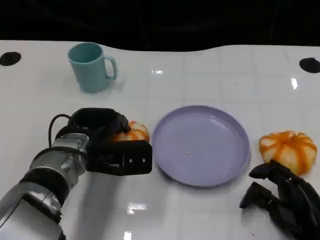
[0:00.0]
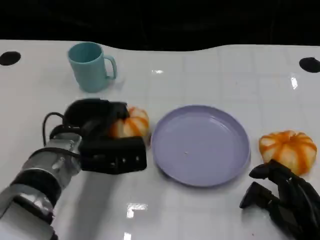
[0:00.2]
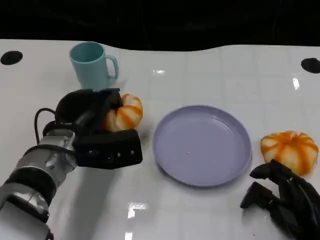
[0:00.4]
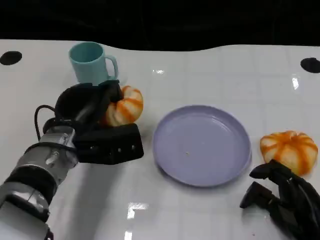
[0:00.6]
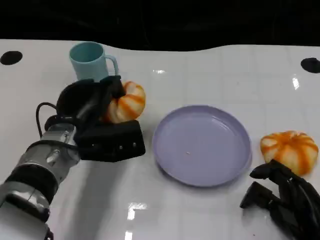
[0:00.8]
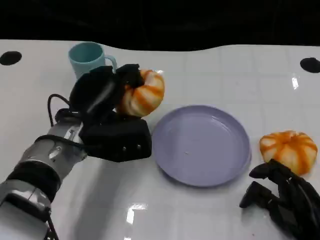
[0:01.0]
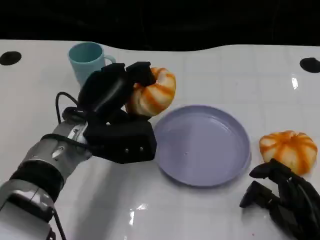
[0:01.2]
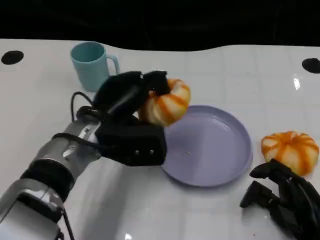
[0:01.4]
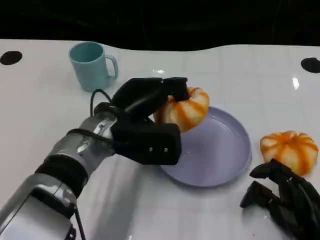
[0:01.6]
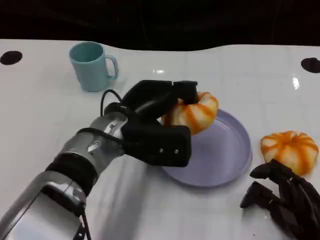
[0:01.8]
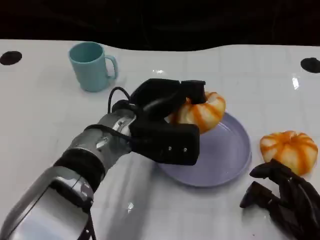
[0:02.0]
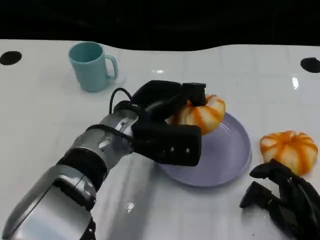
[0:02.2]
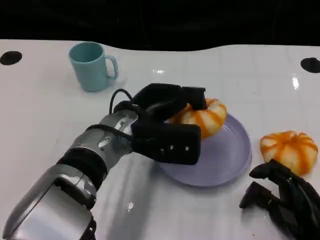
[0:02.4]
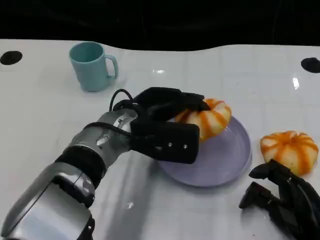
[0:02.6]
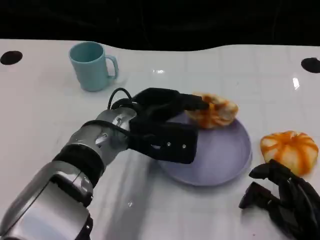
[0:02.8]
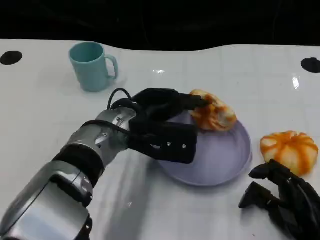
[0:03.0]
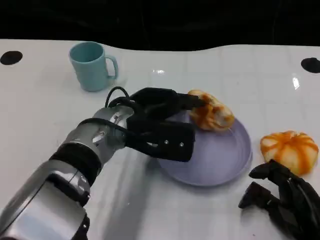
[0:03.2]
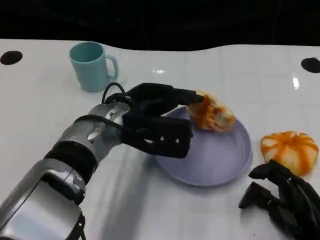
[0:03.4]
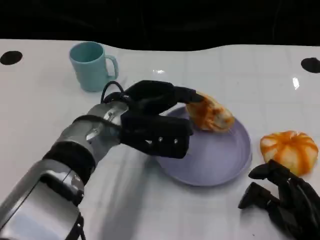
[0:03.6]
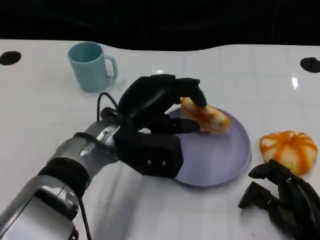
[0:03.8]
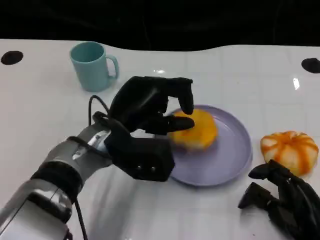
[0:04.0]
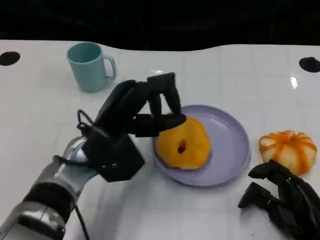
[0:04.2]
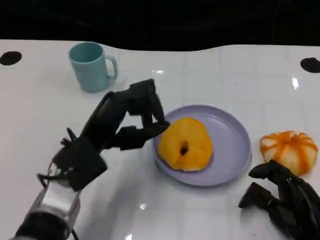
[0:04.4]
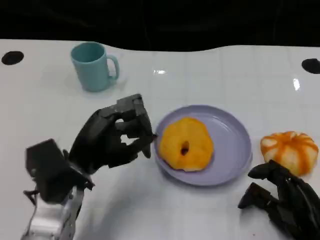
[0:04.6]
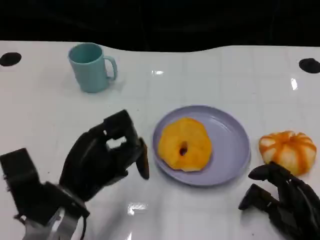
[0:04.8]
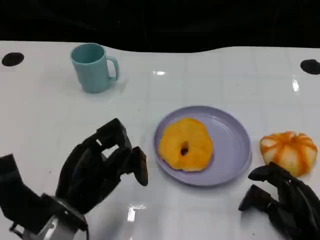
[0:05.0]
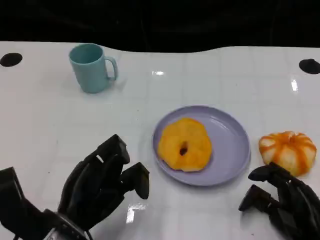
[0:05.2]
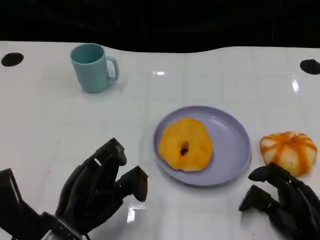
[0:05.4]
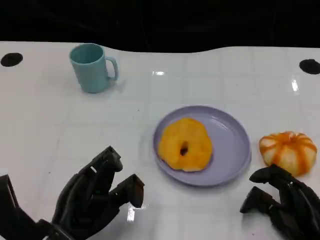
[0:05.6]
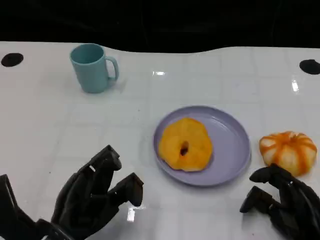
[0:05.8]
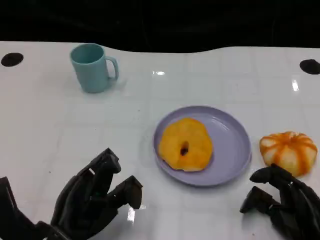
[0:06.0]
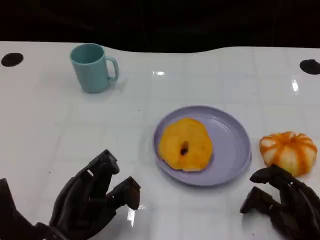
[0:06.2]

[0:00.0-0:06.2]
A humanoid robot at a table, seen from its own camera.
Task of the whole recording: Grasp the bread from the table and place it into the plate.
0:00.0 to 0:01.6: The left hand shifts approximately 5 cm to the right.
0:01.6 to 0:03.2: There are only small adjustments of the hands.
0:03.2 to 0:04.6: The left hand moves to the left and backward, roughly 10 cm.
0:04.6 to 0:06.2: The left hand is displaced backward by about 5 cm.

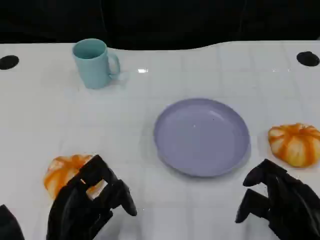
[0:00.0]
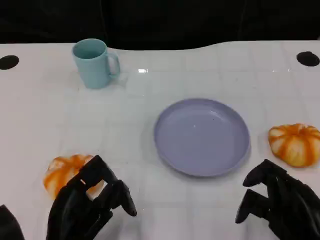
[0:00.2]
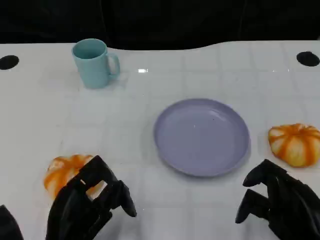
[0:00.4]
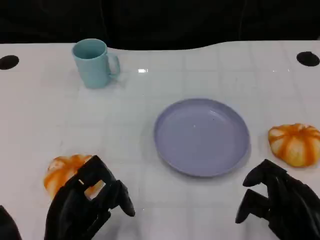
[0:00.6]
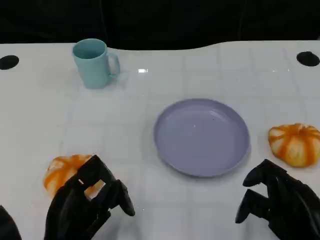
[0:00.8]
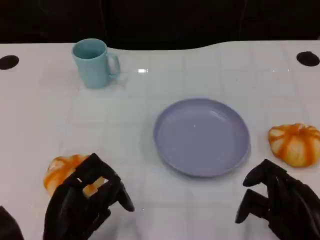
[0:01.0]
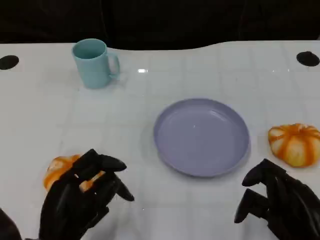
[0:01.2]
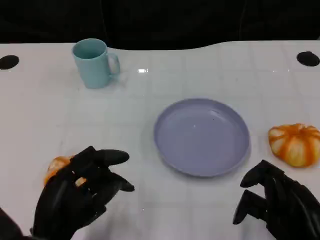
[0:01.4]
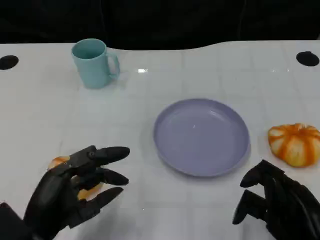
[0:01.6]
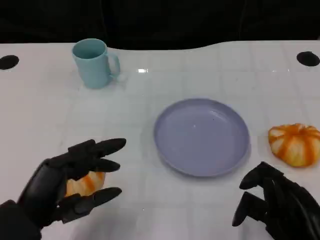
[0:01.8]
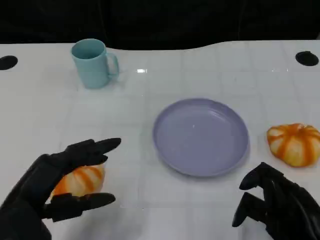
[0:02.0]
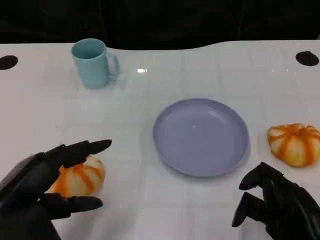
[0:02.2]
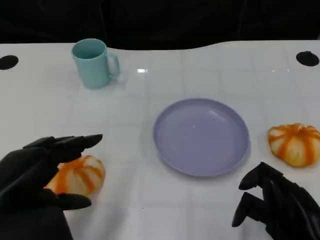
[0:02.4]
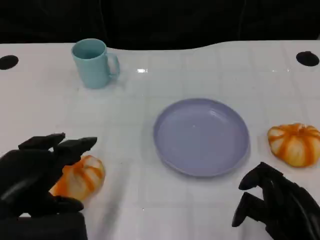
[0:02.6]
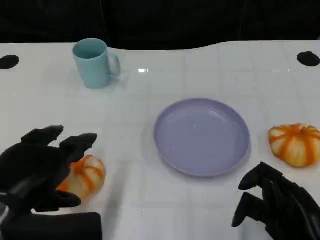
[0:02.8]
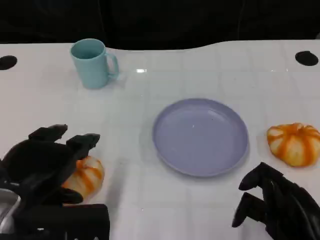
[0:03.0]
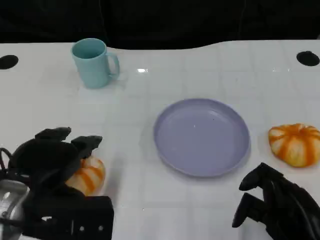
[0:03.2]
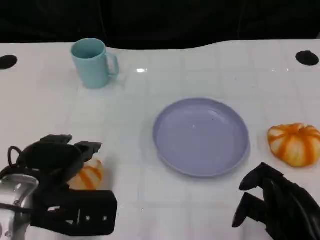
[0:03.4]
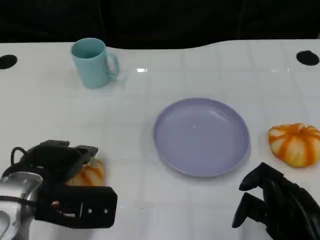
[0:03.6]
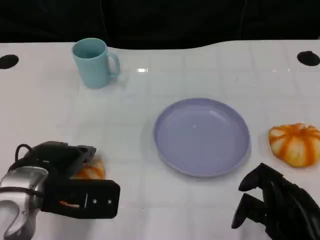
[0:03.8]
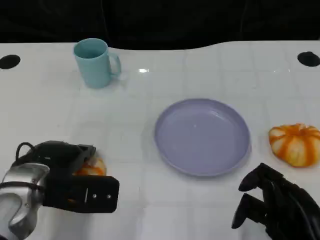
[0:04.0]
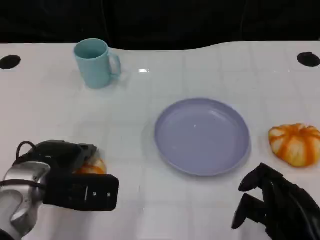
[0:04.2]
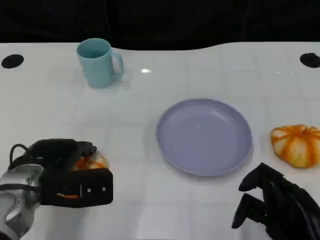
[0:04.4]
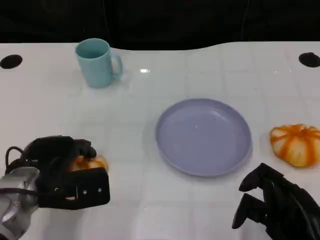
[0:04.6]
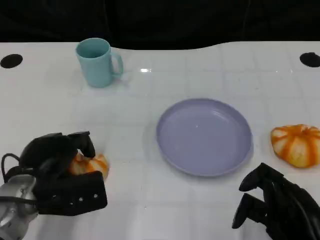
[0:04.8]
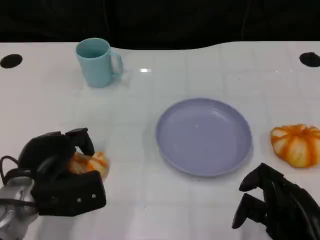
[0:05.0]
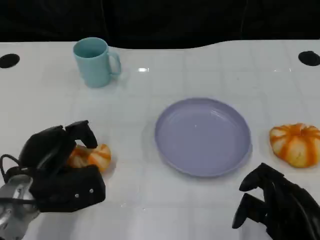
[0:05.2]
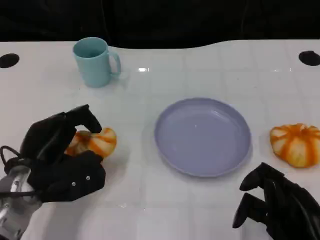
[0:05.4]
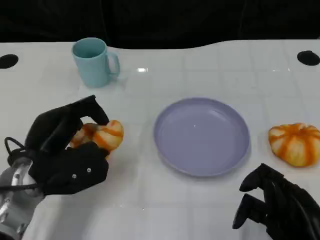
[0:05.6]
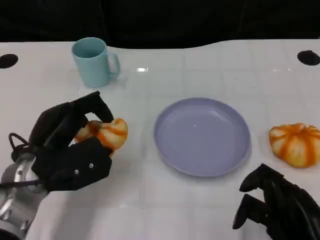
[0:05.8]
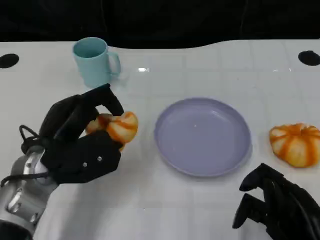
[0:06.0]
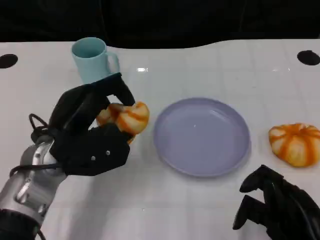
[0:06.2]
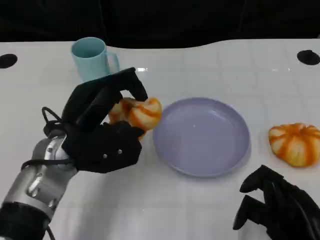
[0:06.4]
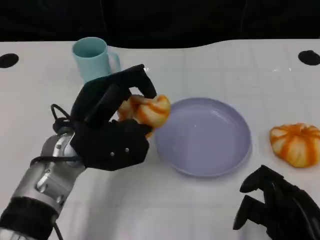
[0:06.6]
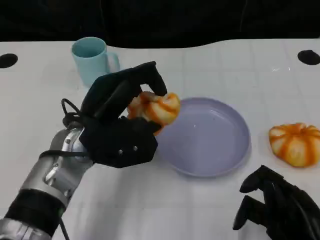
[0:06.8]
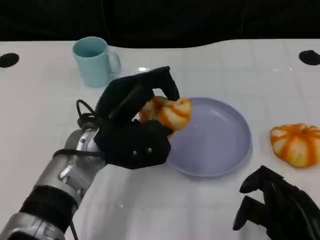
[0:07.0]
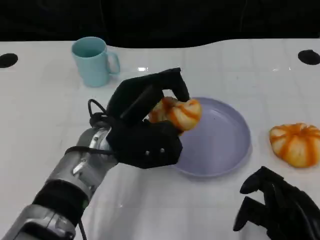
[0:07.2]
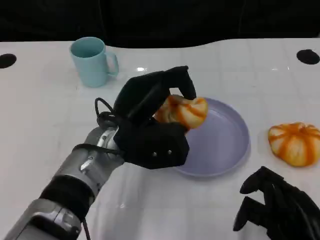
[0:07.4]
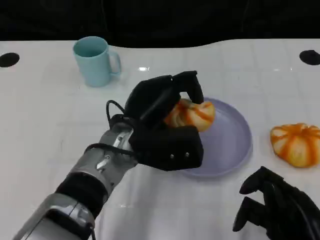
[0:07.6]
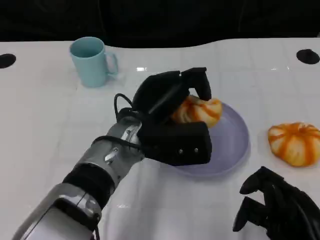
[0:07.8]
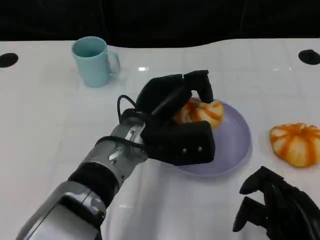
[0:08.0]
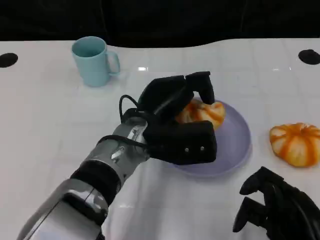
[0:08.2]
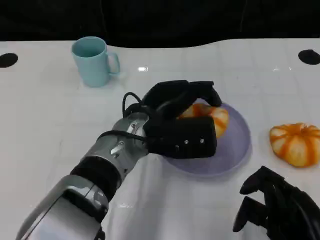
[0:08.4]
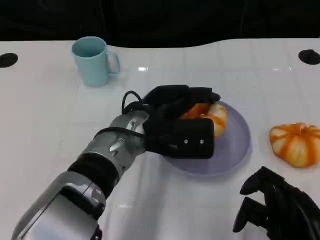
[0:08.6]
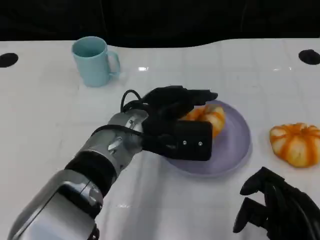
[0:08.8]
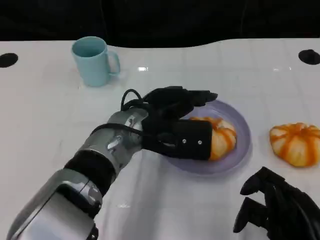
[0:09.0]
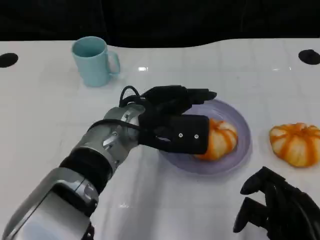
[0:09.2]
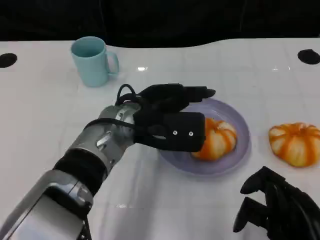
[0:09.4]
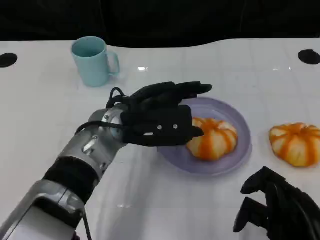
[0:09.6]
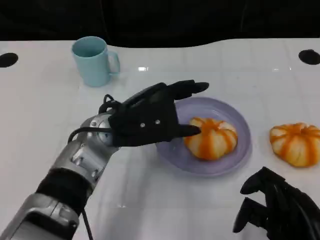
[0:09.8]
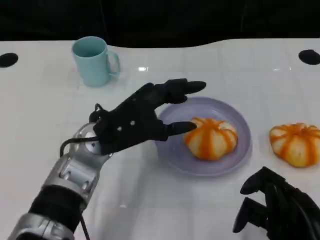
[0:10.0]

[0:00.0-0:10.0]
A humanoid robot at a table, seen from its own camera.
Task of the whole recording: Grasp the bread from the table and place it into the plate.
0:01.4 to 0:02.8: The left hand goes roughly 10 cm upward.
0:02.8 to 0:04.2: The left hand heads forward and downward, covering roughly 10 cm.
0:05.8 to 0:07.2: The left hand shifts some 10 cm to the right.
0:08.6 to 0:10.0: The left hand heads to the left, covering some 5 cm.

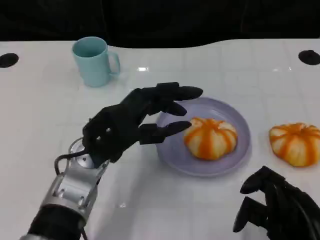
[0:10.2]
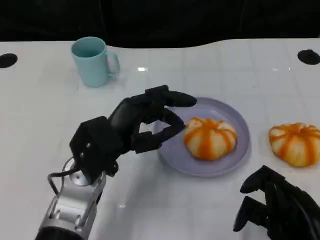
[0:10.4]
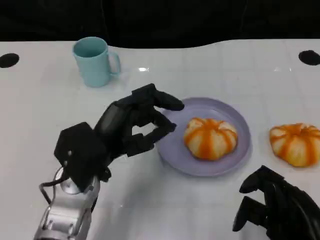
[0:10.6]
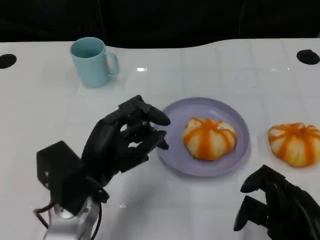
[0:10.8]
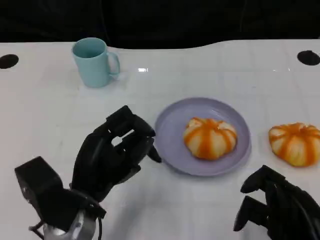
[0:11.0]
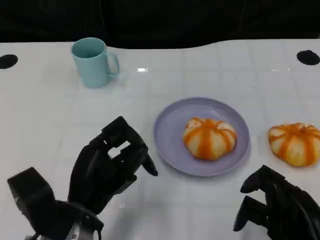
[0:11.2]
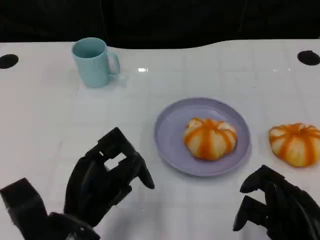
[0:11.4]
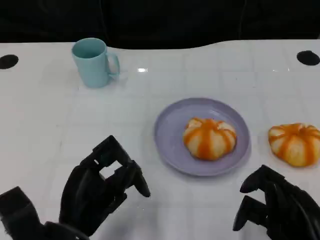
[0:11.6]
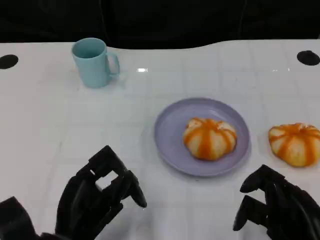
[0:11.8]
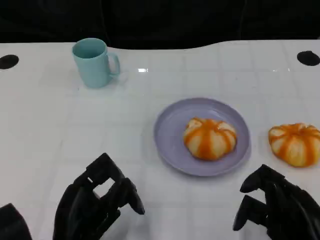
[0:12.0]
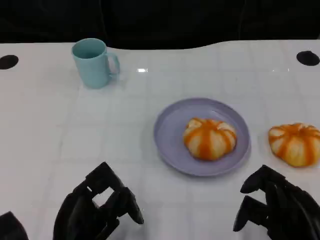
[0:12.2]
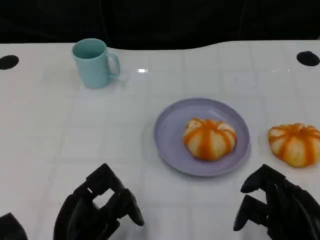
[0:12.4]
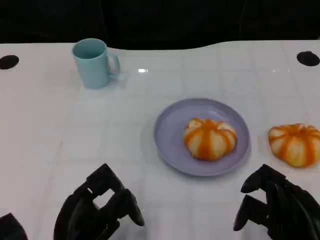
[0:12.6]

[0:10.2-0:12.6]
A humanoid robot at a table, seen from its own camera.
Task of the whole recording: Grasp the bread from the table and place it into the plate.
0:10.2 to 0:11.4: The left hand heads backward and downward, covering about 10 cm.
0:11.4 to 0:12.6: The hands move only a little.

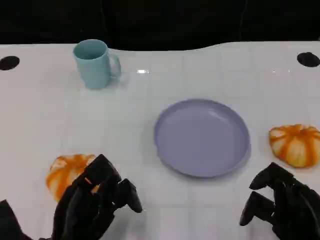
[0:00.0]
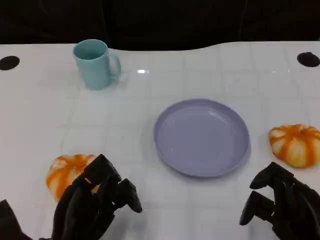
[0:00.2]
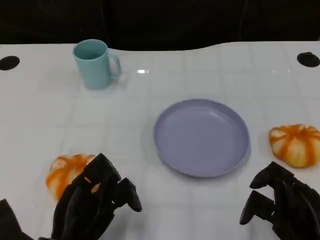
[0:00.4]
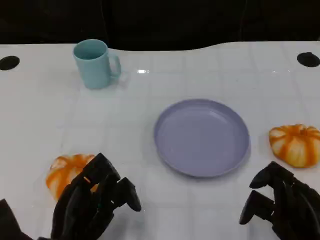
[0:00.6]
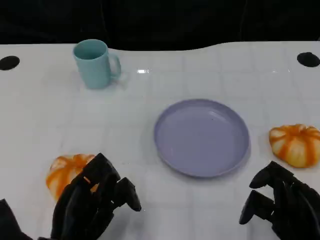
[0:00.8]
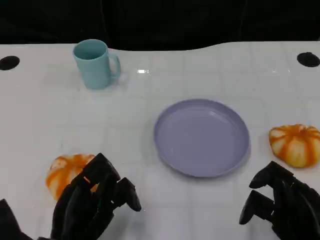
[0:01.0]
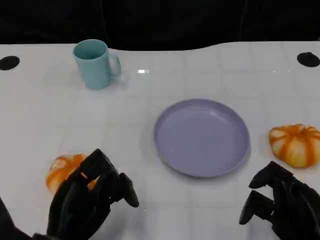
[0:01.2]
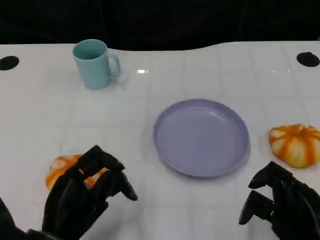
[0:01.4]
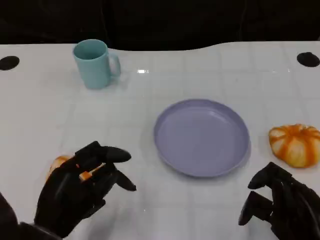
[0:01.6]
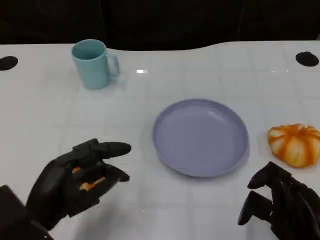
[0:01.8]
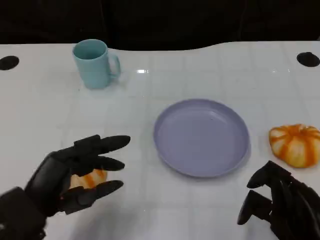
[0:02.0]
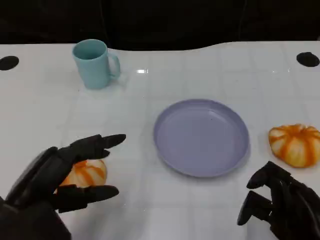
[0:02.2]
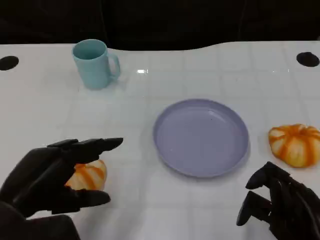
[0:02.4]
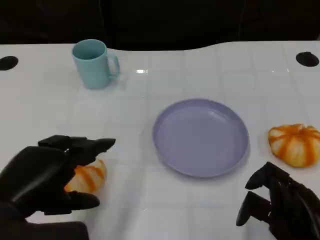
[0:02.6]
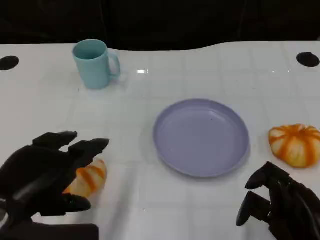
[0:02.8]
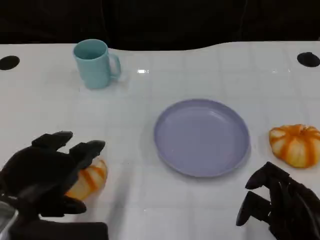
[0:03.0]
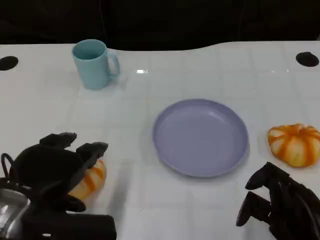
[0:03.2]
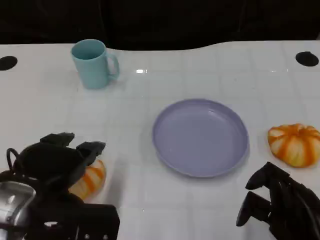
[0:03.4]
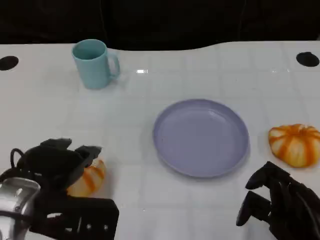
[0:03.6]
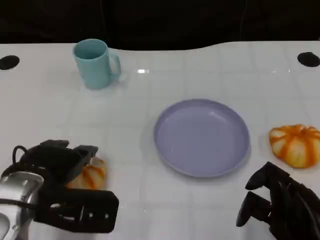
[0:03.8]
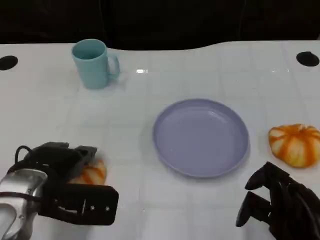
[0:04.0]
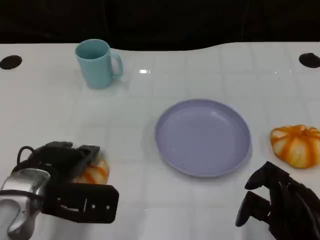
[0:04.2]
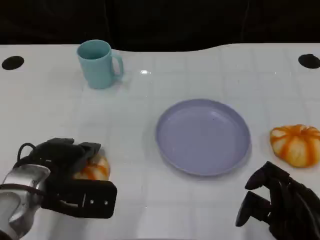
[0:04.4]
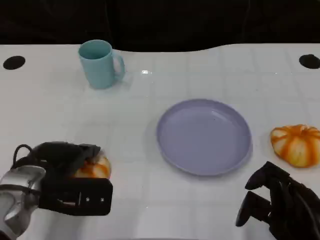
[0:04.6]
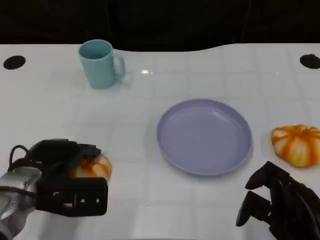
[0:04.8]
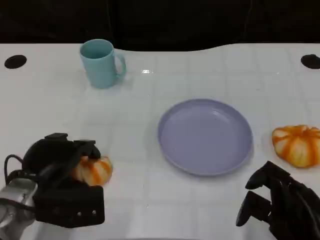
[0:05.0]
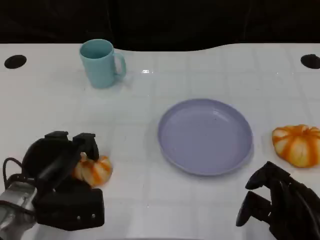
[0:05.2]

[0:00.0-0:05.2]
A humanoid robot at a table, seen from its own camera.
Task of the whole recording: Grasp the bread from the table and place it into the plate.
0:00.0 to 0:01.8: The left hand ends up approximately 5 cm from where it was.
0:01.8 to 0:03.4: The left hand goes roughly 5 cm upward.
0:03.4 to 0:05.2: The left hand heads downward and forward, covering approximately 10 cm.
